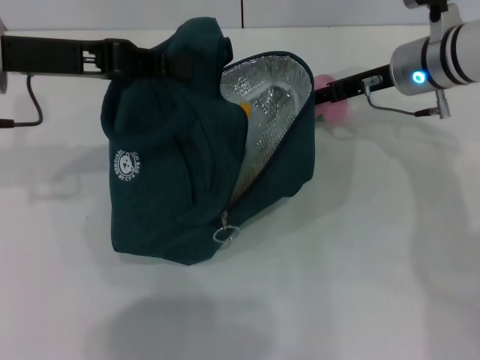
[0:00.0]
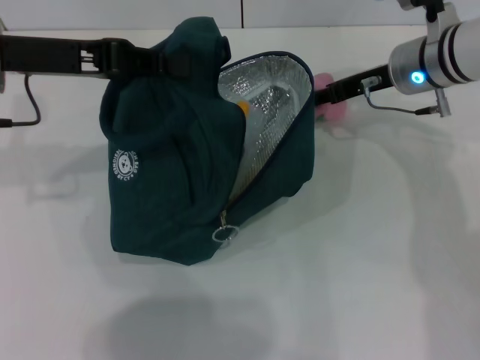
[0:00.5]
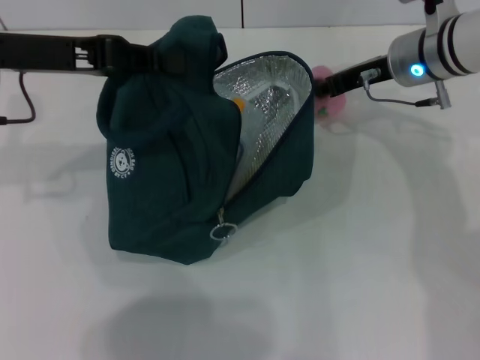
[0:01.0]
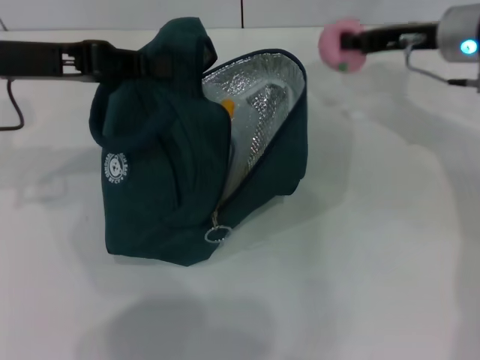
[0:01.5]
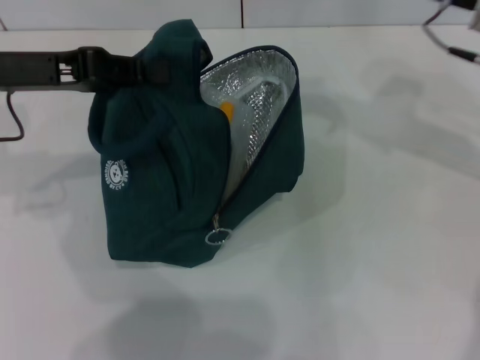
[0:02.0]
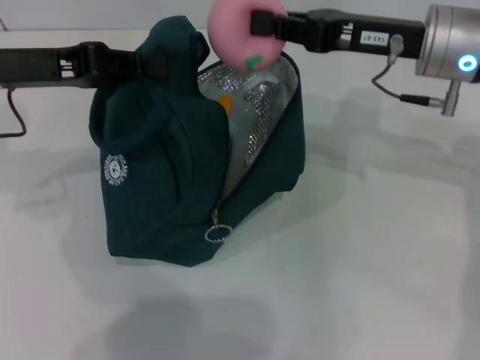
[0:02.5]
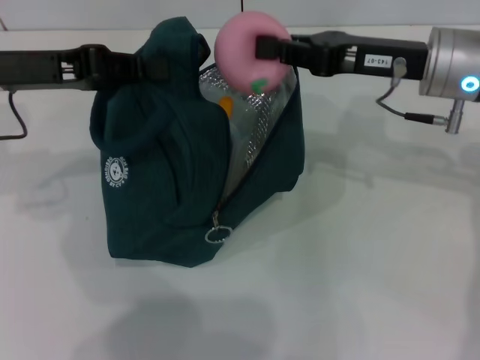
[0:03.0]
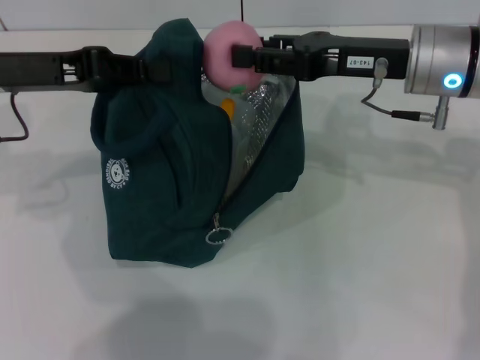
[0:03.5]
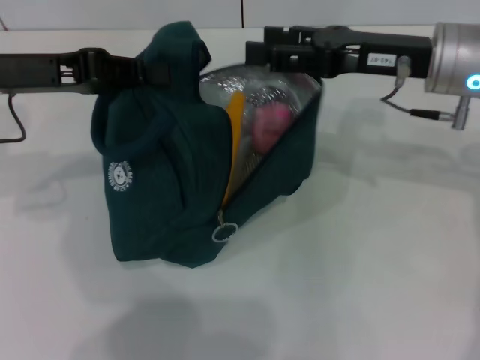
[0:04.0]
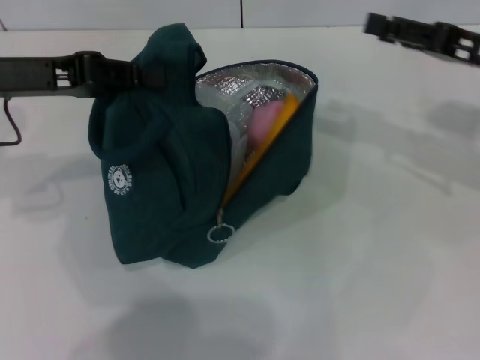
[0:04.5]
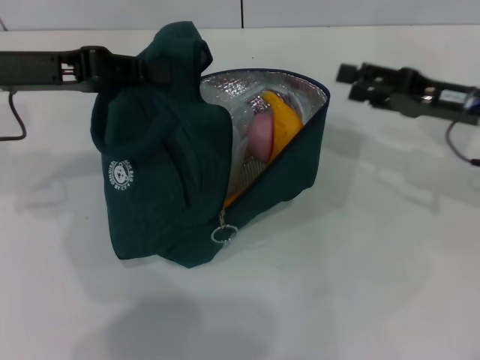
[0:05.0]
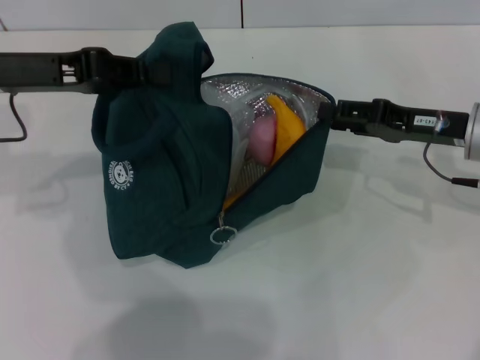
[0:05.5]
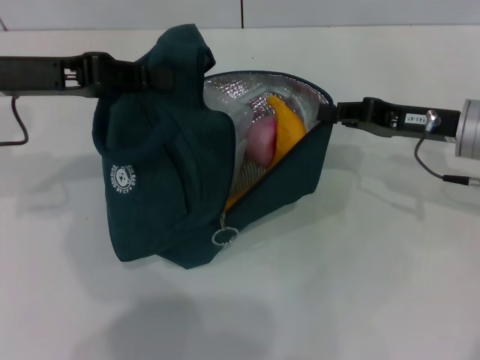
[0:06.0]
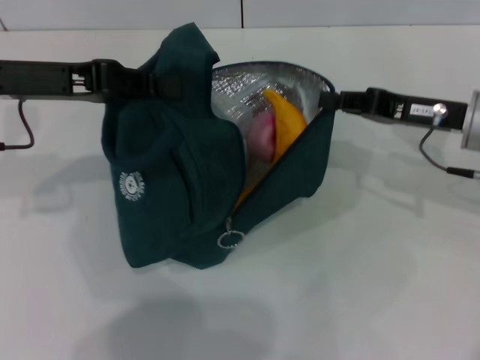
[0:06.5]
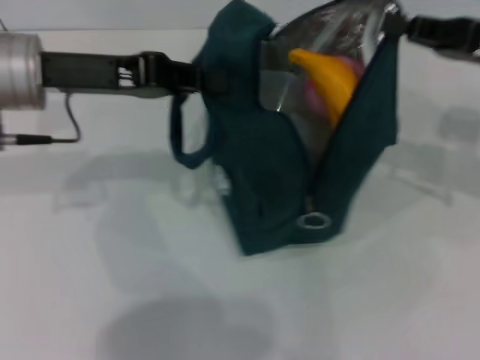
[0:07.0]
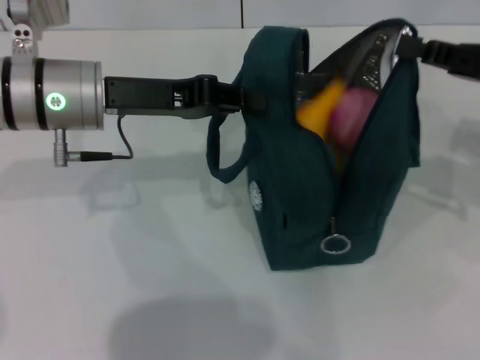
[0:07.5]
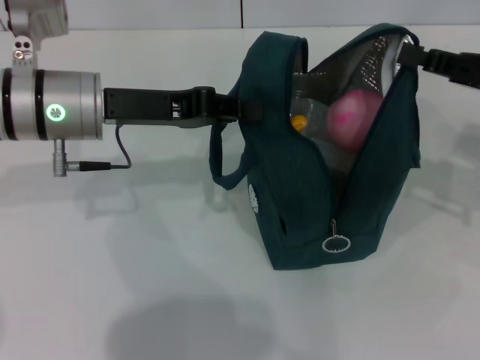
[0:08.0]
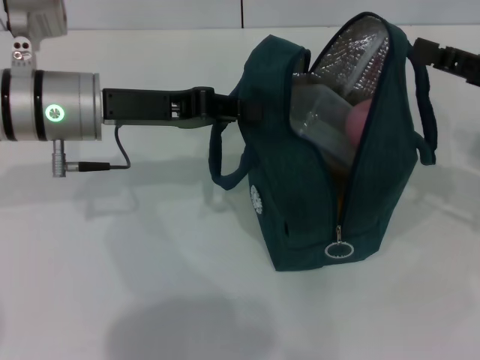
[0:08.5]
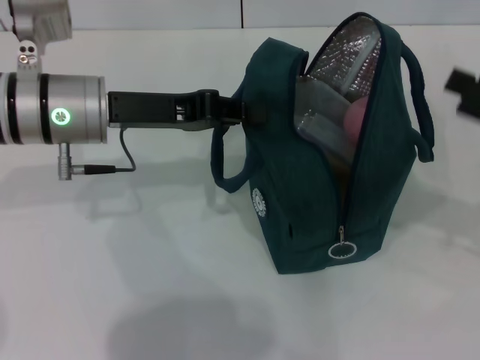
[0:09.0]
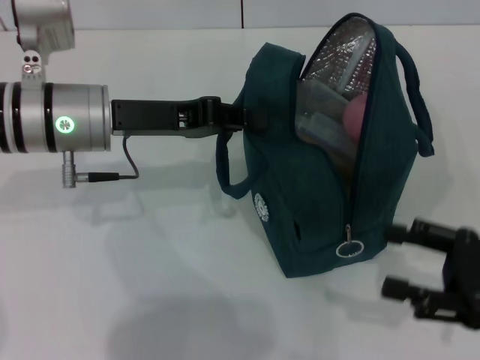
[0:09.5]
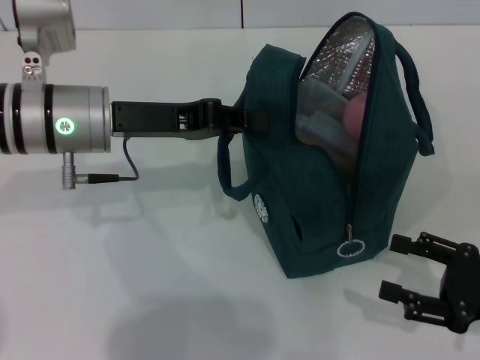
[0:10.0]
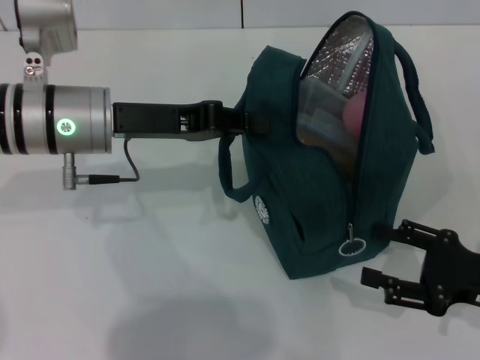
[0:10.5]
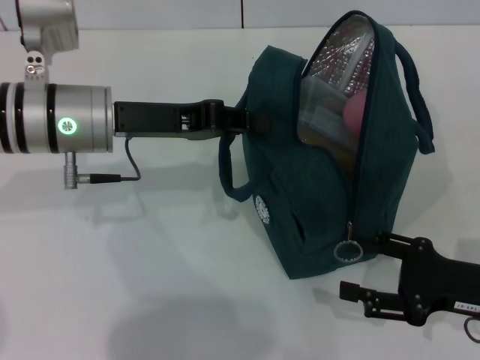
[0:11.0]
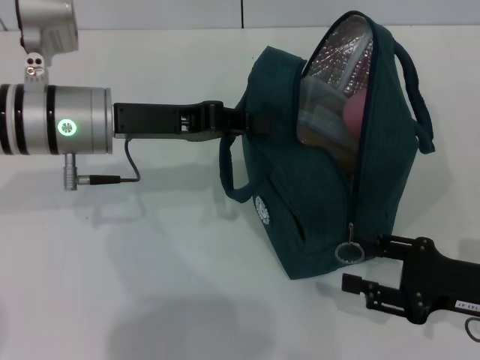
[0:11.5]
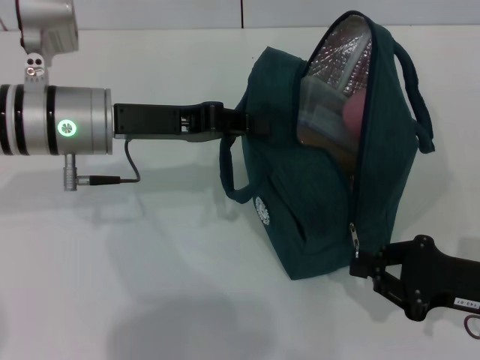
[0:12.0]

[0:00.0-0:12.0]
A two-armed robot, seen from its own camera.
Step, 0:04.5 to 0:08.0: Hold the lunch bag with your right hand.
0:00.0 to 0:02.0: The right gripper is displaced upward and to the right by some 10 cm, and closes up.
0:02.0 to 0:04.0: The right gripper changes place by some 5 cm, and opens up.
0:04.0 to 0:06.0: The right gripper is displaced downward by roughly 5 cm, and closes up.
0:06.0 to 0:08.0: The left gripper moves to the right, roughly 10 cm. Meanwhile the right gripper is displaced to the right and upward by roughly 10 cm.
0:08.0 to 0:10.0: The right gripper heads backward and downward, covering about 15 cm, and opens up.
0:10.0 to 0:12.0: The right gripper closes its fingers.

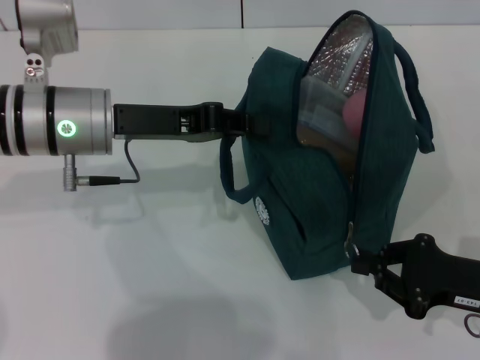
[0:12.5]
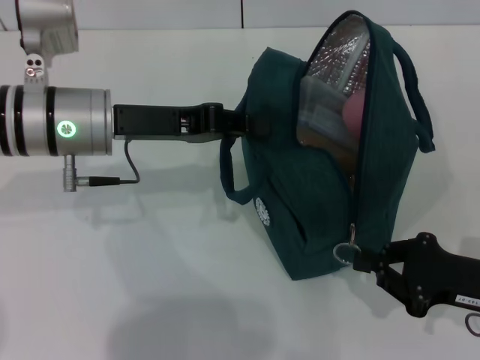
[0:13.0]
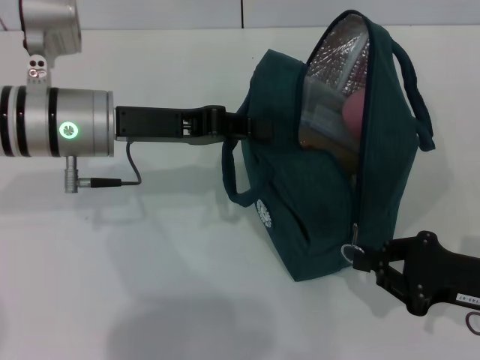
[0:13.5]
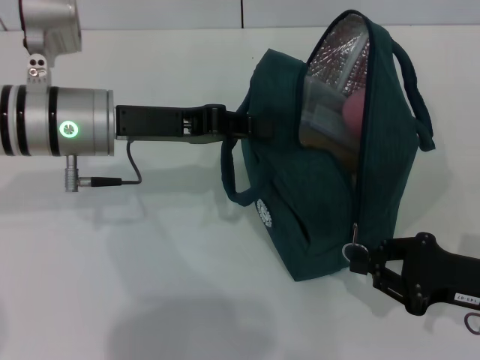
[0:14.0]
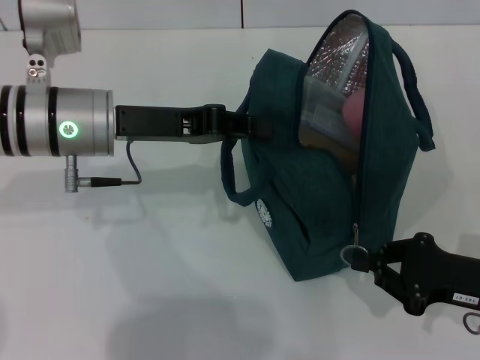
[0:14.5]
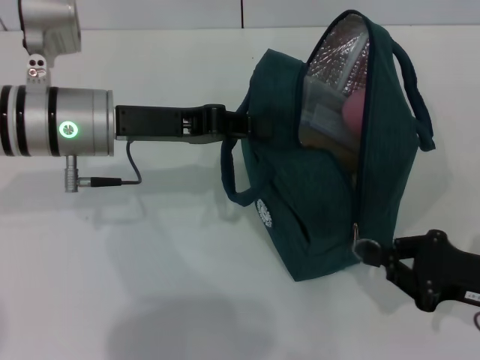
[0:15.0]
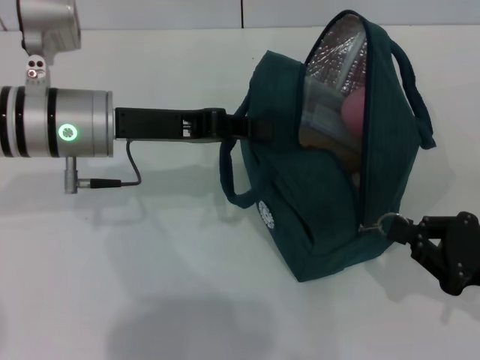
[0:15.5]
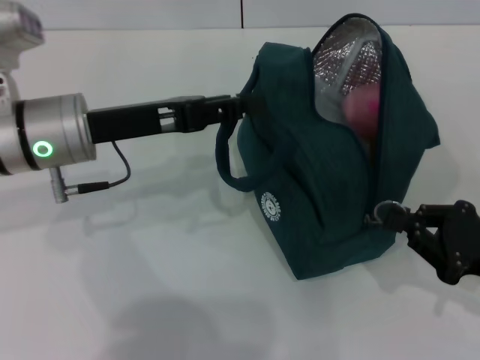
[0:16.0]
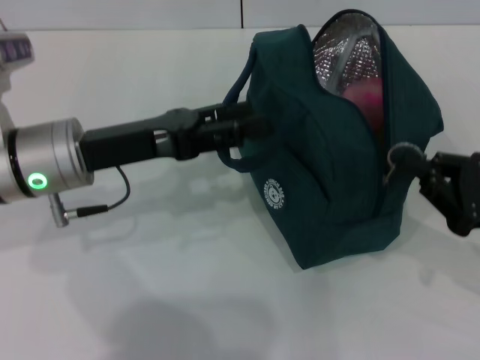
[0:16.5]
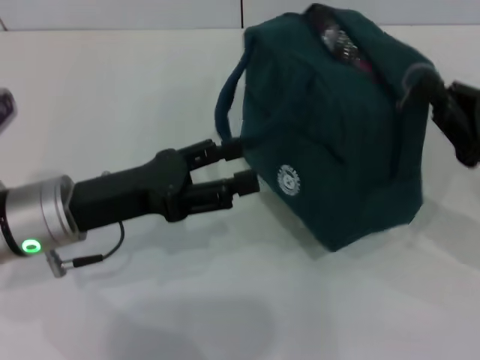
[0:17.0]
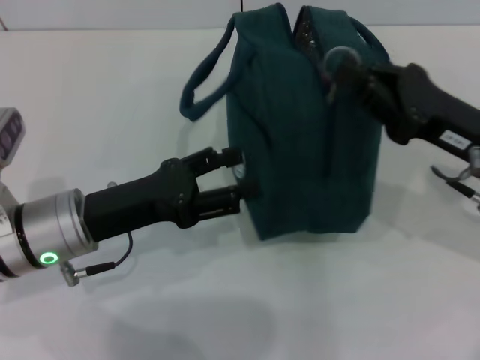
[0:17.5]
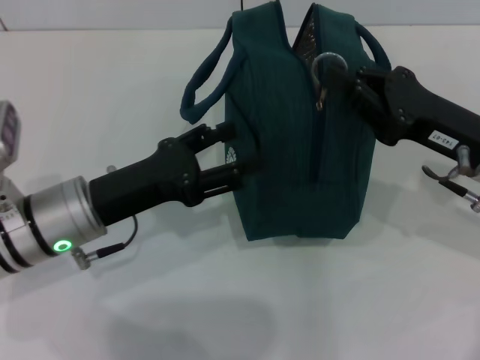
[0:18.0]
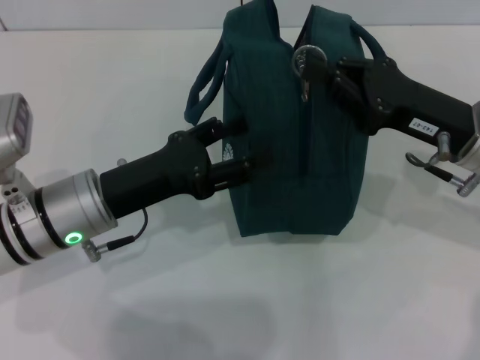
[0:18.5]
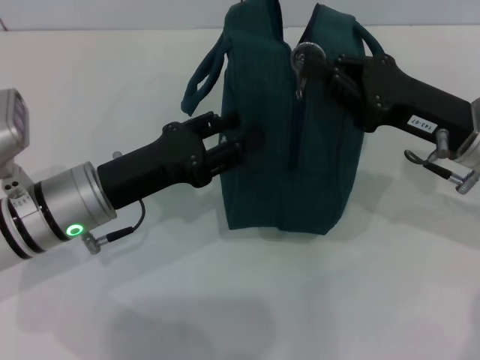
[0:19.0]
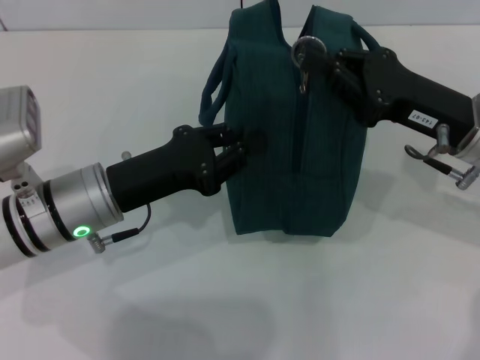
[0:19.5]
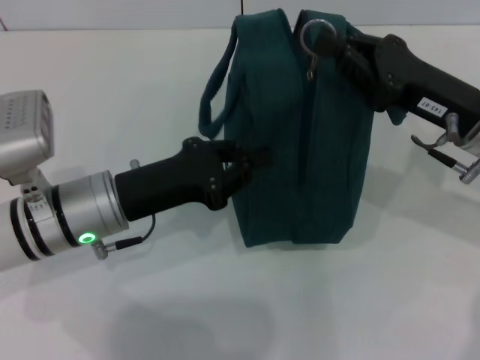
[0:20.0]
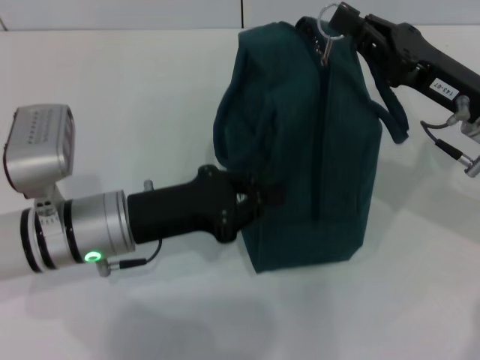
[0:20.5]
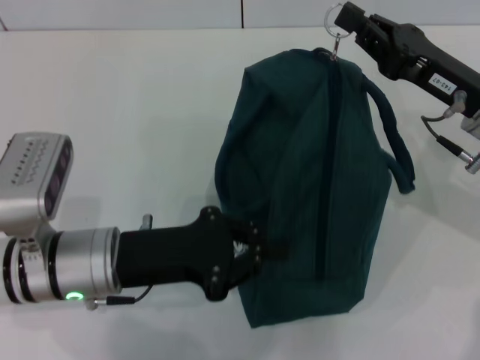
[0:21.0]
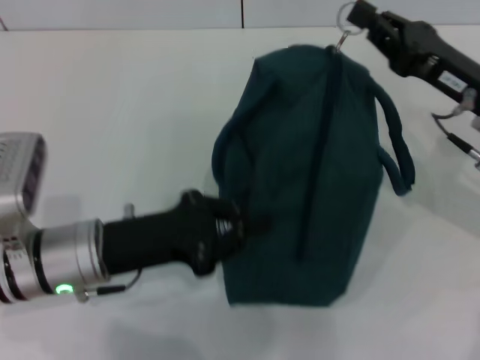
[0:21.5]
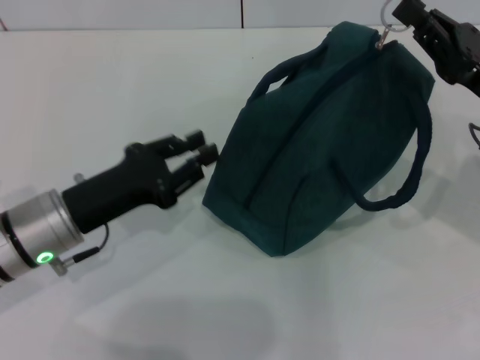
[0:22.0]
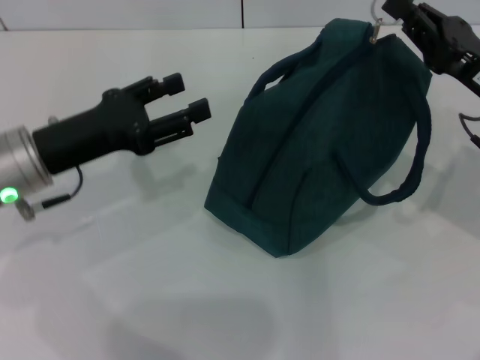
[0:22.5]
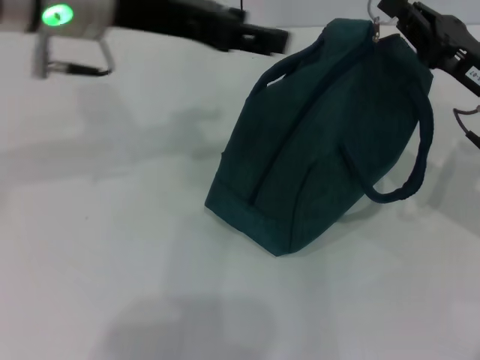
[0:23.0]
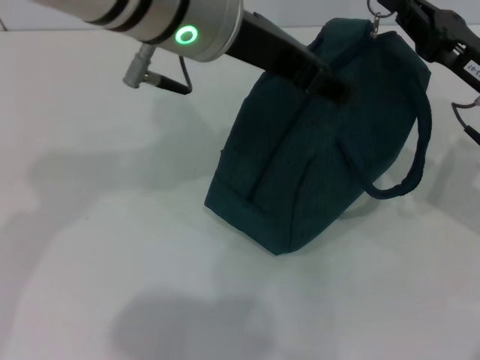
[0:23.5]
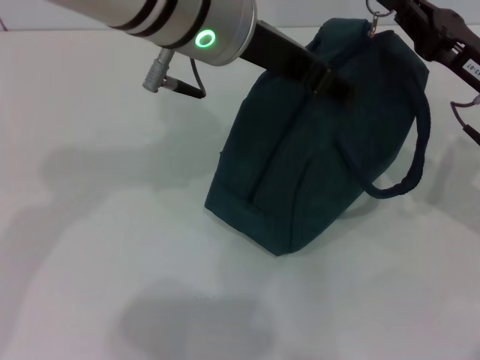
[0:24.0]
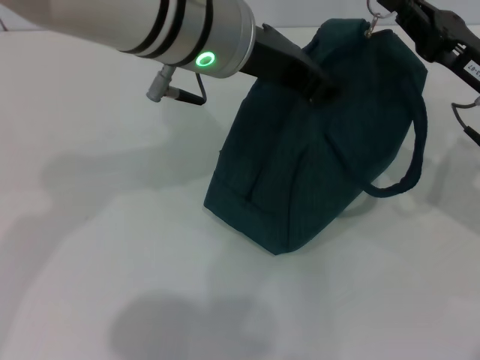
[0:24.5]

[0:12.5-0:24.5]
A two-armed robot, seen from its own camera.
Step, 0:12.5 to 0:16.0: Hold the lunch bag with your left hand.
0:12.5 to 0:14.5: Both grippers stay put.
0:14.5 to 0:16.5: The left gripper opens.
0:16.5 to 0:18.5: The left gripper shifts by some 5 cm. The right gripper moves forward and to the left, roughly 10 cm.
0:18.5 to 0:20.5: The left gripper closes up.
0:20.5 to 0:22.5: The left gripper travels to the left by roughly 5 cm, and opens its fingers.
0:22.5 to 0:24.5: The left gripper goes some 25 cm to the right and upward.

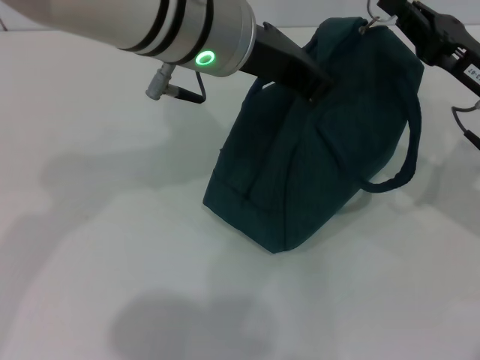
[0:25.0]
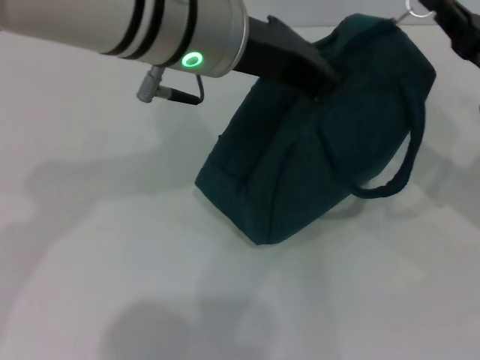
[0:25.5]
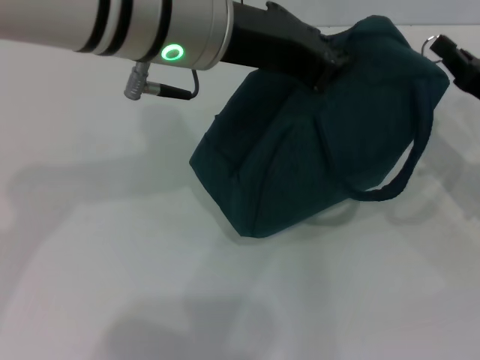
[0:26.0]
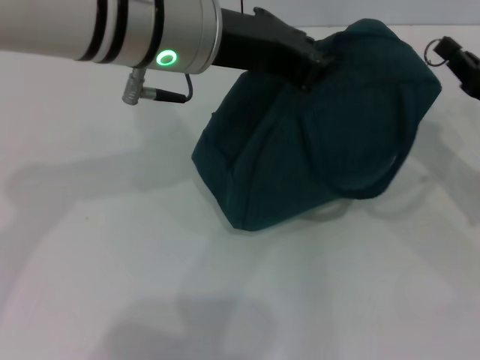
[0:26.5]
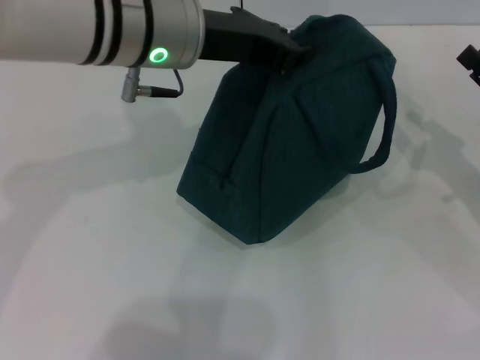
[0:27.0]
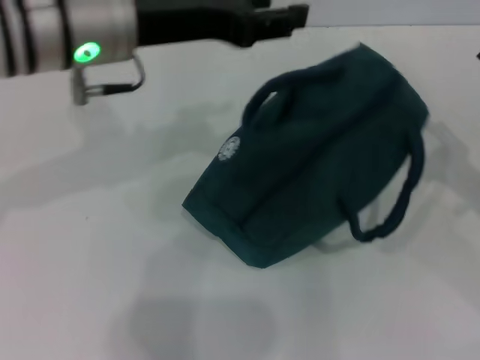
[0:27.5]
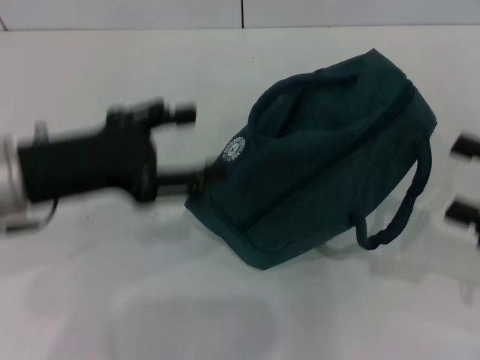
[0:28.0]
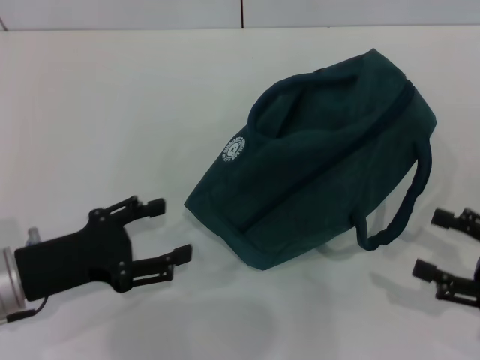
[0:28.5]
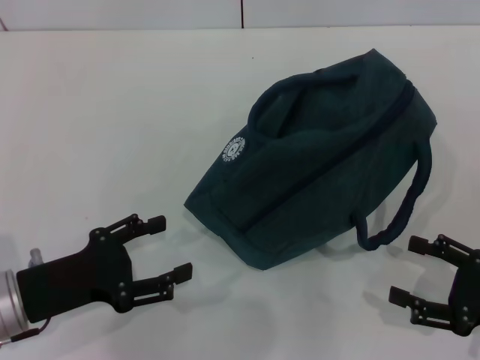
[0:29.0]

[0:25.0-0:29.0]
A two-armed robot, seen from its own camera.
0:25.0 to 0:27.0: The left gripper changes place by some 5 cm, while the right gripper shifts roughly 5 cm to the right.
0:27.0 to 0:29.0: The left gripper is displaced downward, to the left and backward by about 30 cm, and opens. Meanwhile the right gripper heads backward, covering some 10 cm, and opens up.
